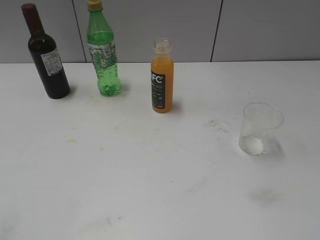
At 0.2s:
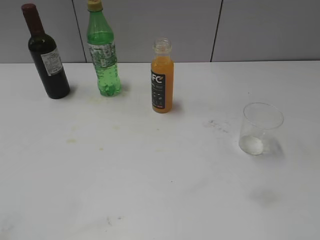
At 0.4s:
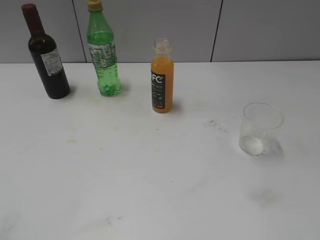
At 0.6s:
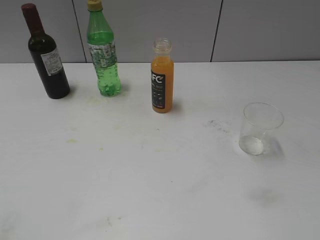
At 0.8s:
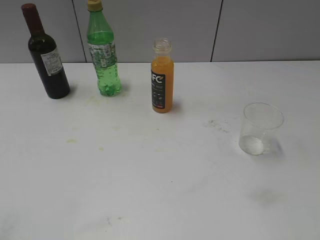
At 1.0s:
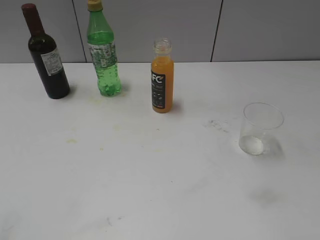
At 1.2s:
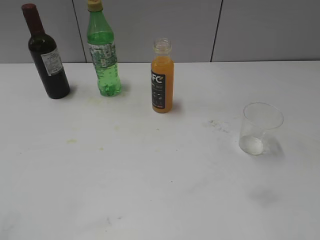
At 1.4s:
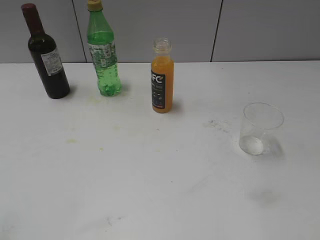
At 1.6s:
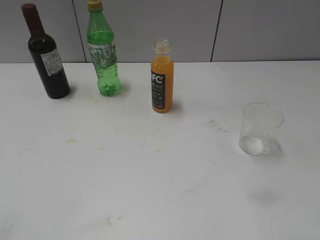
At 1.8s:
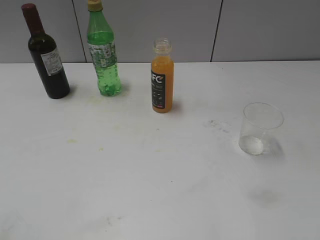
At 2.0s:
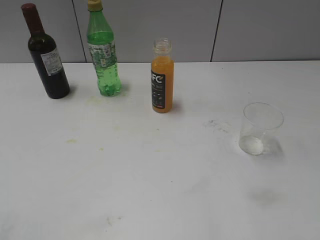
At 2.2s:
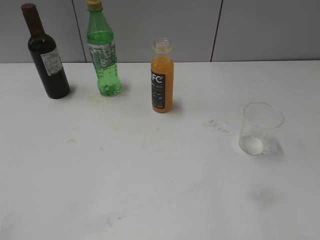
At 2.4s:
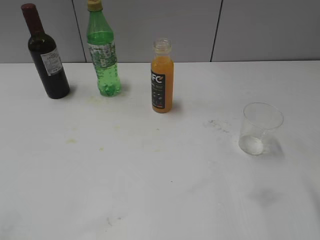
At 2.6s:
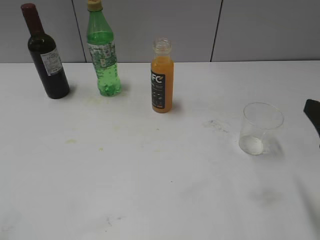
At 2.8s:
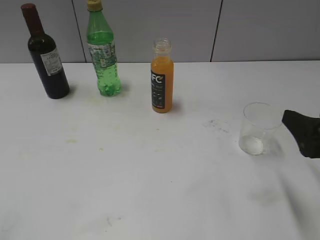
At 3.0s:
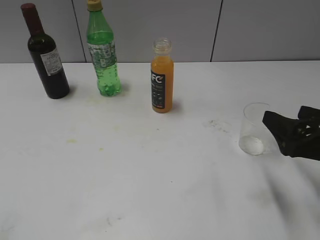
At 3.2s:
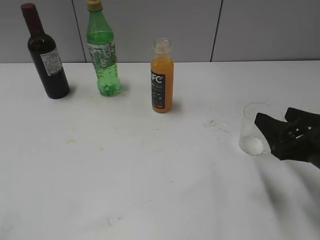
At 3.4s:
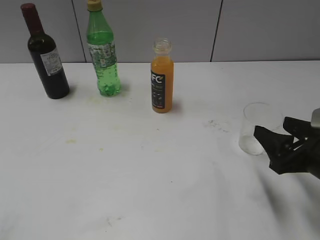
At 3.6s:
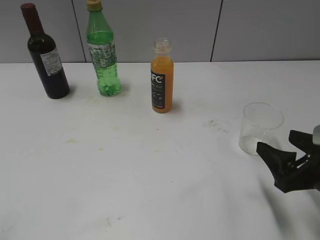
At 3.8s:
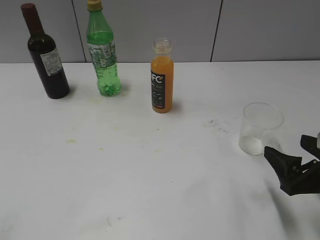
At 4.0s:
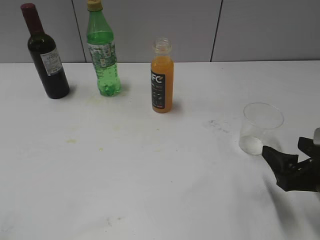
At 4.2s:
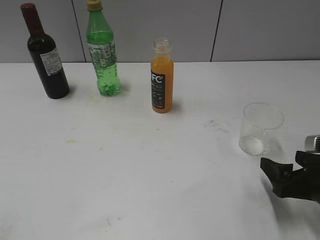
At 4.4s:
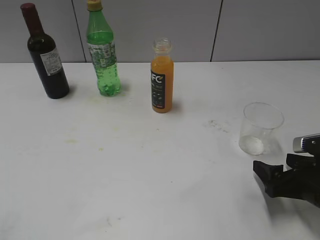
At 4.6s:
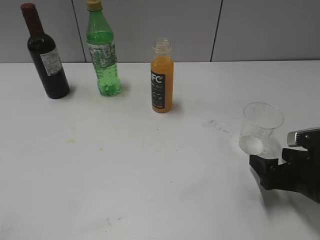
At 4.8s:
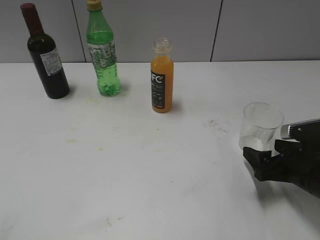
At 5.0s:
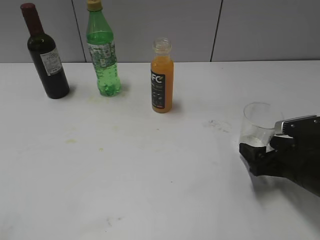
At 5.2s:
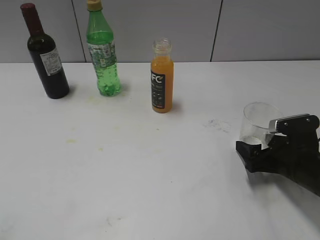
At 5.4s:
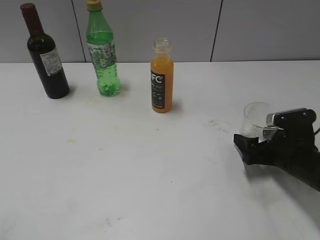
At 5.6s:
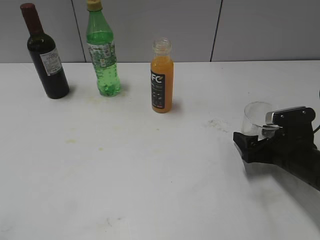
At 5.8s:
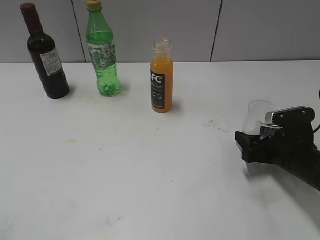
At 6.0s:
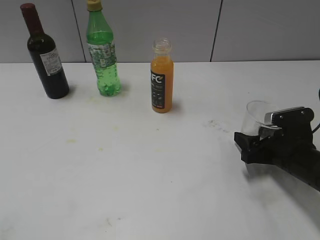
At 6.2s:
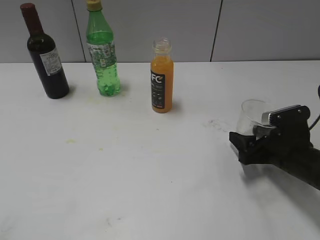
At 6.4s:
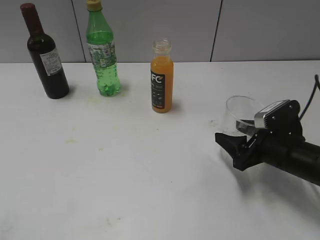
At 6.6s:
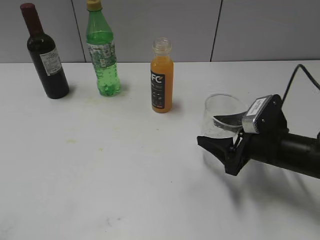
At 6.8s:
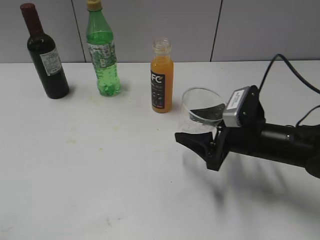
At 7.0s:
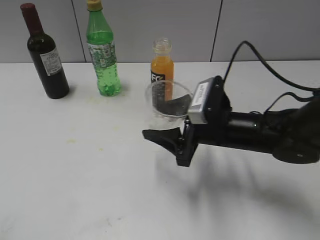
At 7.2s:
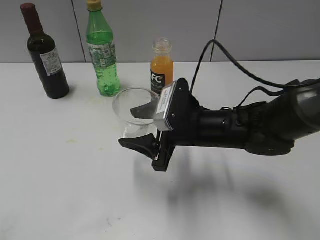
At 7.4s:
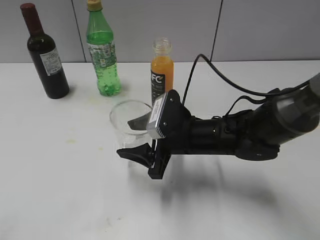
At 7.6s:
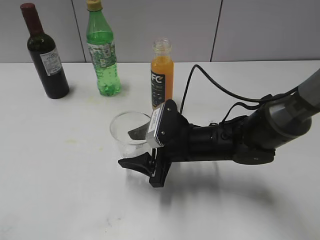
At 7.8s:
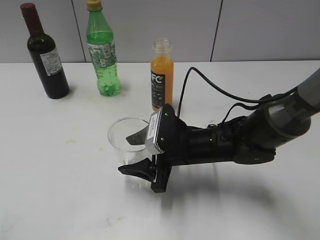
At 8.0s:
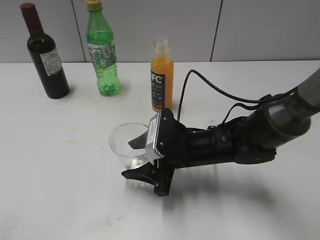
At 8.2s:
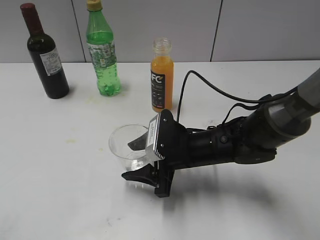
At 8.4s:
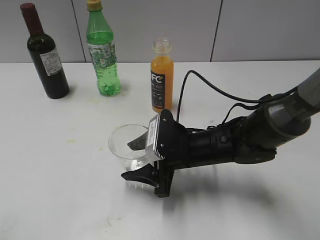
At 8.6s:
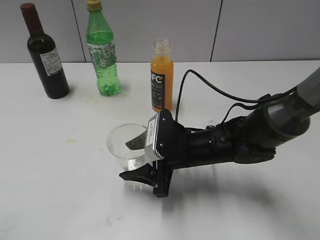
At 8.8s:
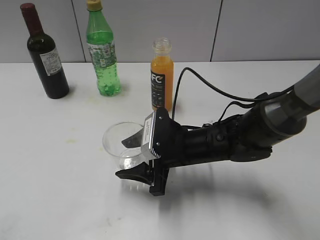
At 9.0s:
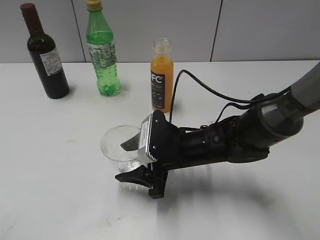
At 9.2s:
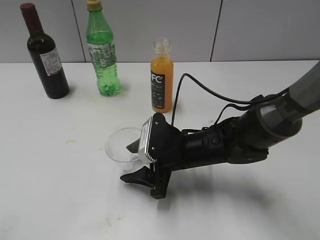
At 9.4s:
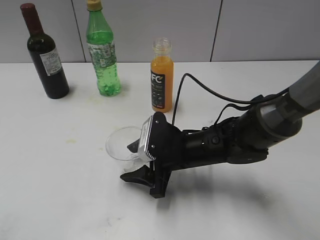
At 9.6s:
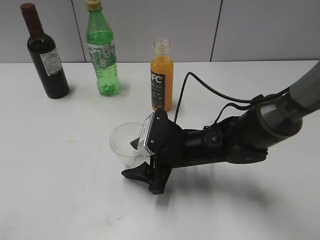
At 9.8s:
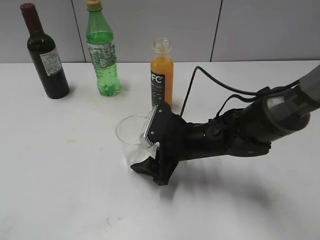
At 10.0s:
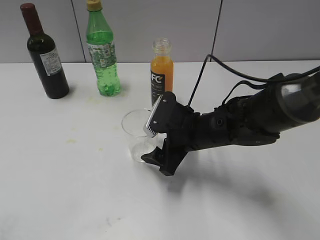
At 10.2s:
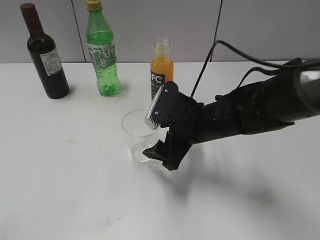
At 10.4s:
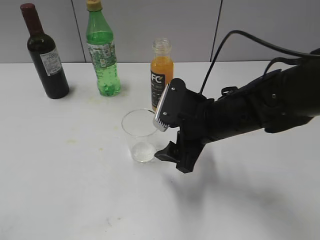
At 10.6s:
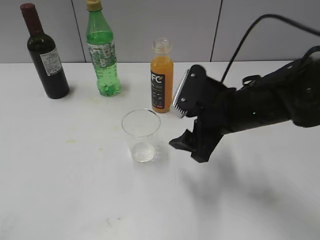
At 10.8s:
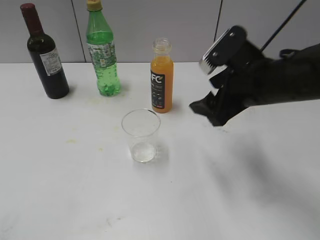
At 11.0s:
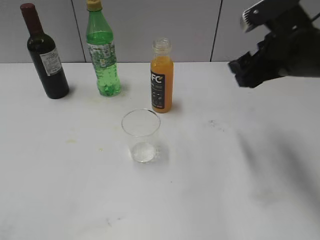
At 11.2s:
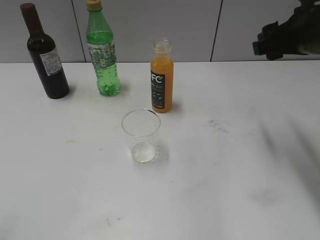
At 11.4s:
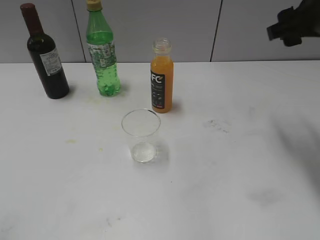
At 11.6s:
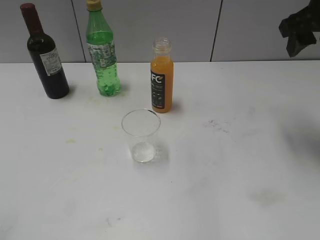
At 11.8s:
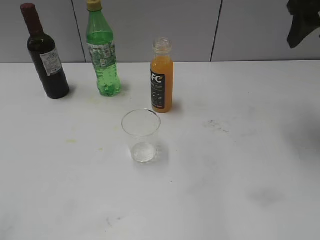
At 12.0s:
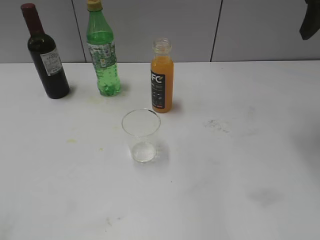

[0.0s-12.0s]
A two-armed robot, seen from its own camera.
Step, 2.6s to 5.8s: Grasp the transparent cup with right gripper.
Step, 6.0s to 10.4s: Place the transparent cup on the table with right gripper.
1.6s to 3.0s: The right gripper goes some 20 cm downward and forward, and opens.
3.0s to 4.4s: The right gripper heads downward, covering approximately 10 cm, and closes, then reopens.
4.4s to 6.0s: The right gripper shifts some 10 cm forward, and closes.
6.0s to 7.6s: The right gripper shifts some 20 cm to the left.
7.6s to 9.0s: The grippers stay close to where they were, moving slightly.
9.0s to 10.4s: The right gripper goes some 5 cm upward, and opens.
10.4s to 12.0s: The right gripper heads upward and to the right, covering about 30 cm, and closes up.

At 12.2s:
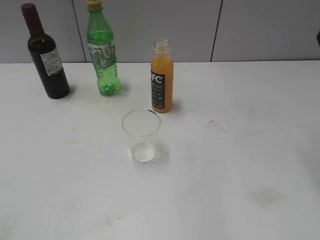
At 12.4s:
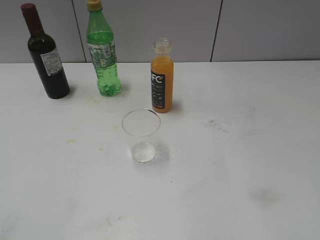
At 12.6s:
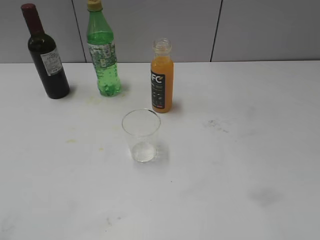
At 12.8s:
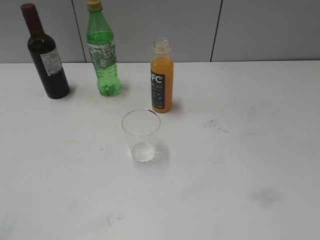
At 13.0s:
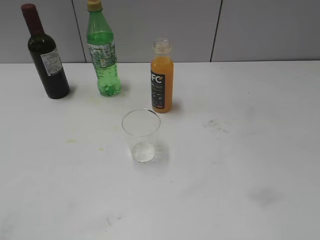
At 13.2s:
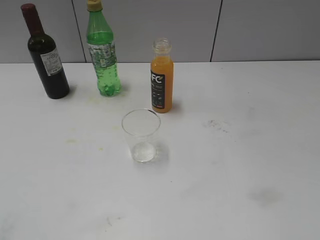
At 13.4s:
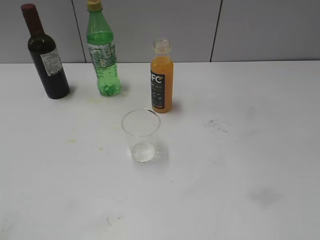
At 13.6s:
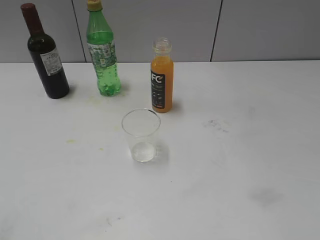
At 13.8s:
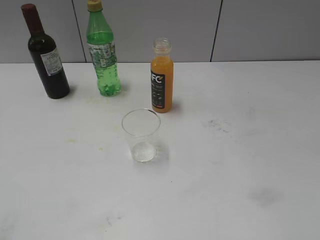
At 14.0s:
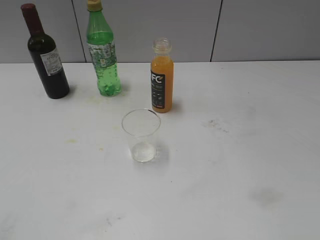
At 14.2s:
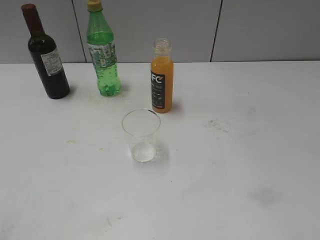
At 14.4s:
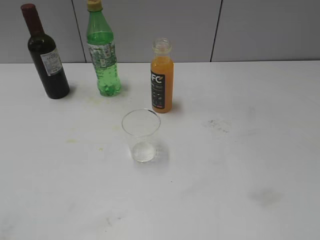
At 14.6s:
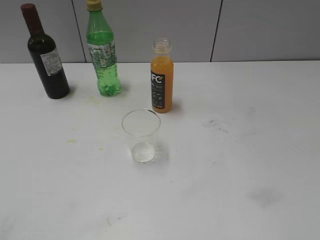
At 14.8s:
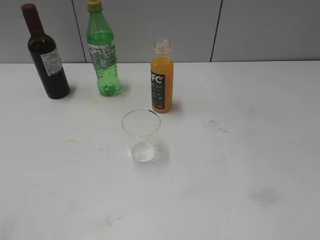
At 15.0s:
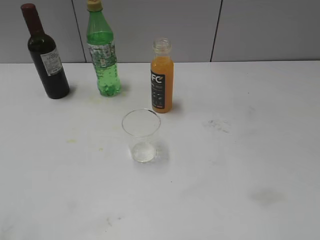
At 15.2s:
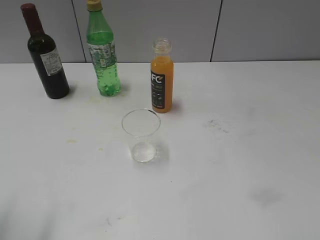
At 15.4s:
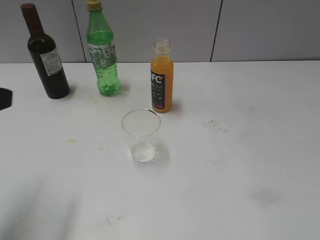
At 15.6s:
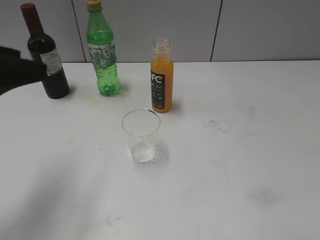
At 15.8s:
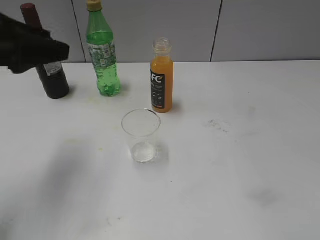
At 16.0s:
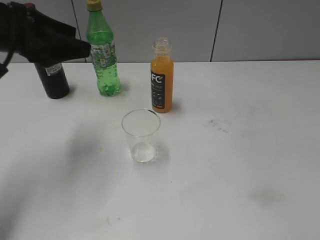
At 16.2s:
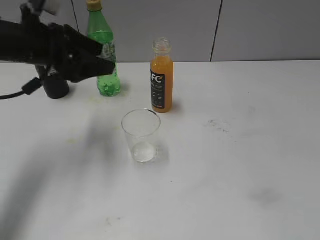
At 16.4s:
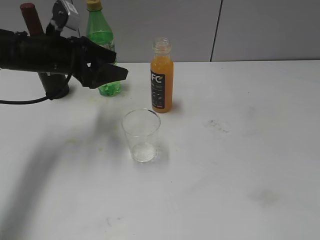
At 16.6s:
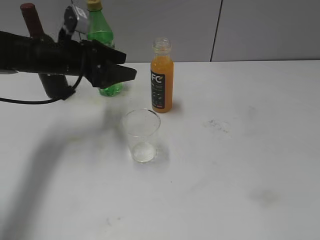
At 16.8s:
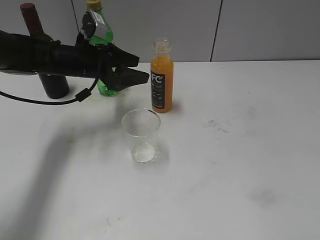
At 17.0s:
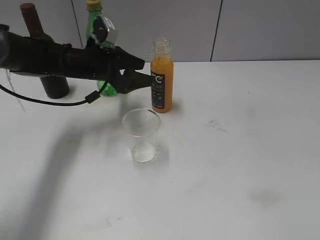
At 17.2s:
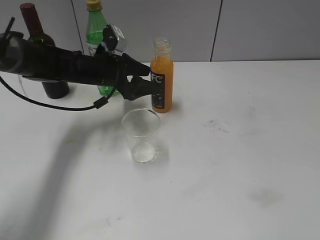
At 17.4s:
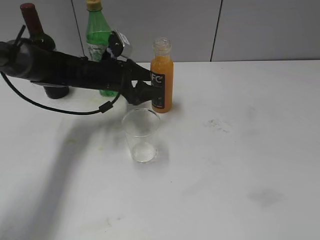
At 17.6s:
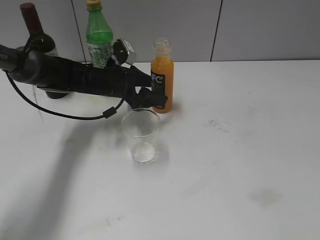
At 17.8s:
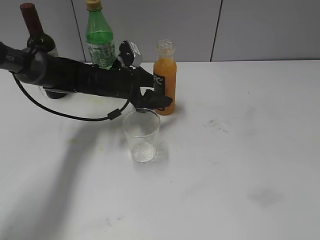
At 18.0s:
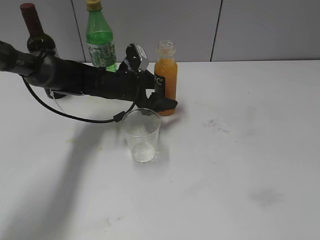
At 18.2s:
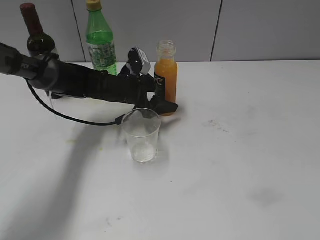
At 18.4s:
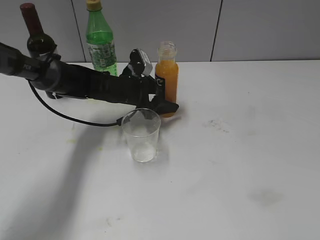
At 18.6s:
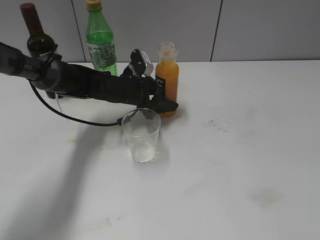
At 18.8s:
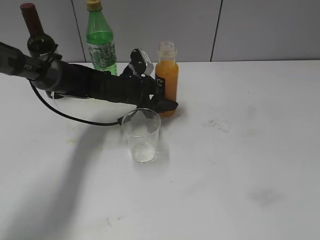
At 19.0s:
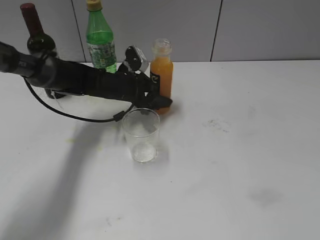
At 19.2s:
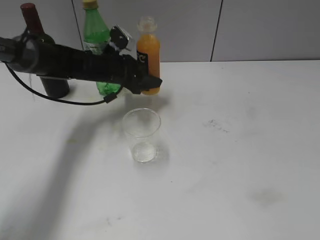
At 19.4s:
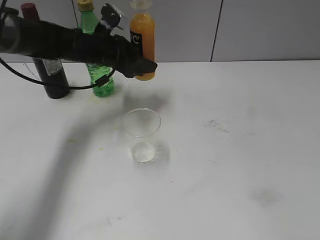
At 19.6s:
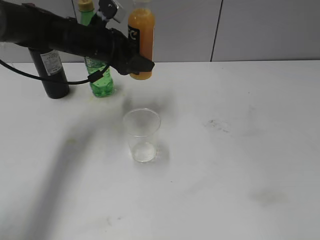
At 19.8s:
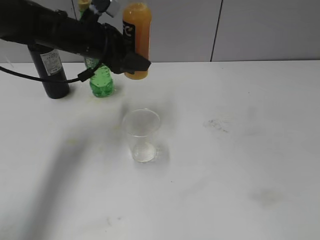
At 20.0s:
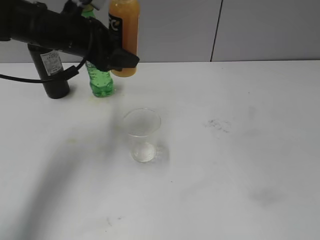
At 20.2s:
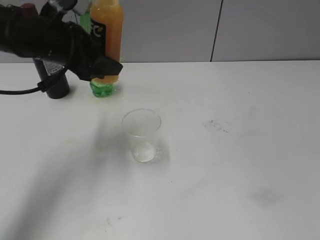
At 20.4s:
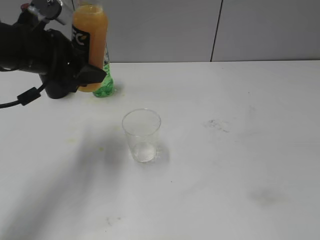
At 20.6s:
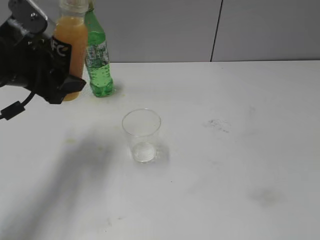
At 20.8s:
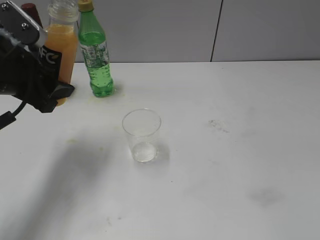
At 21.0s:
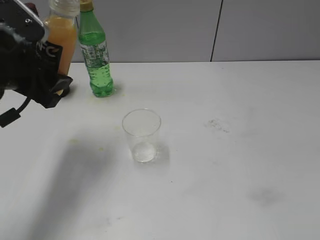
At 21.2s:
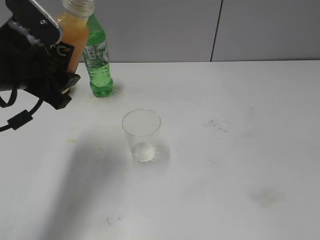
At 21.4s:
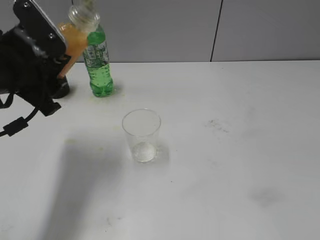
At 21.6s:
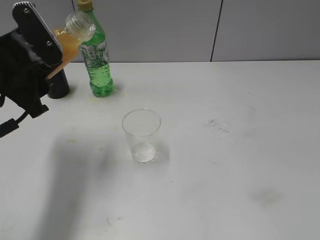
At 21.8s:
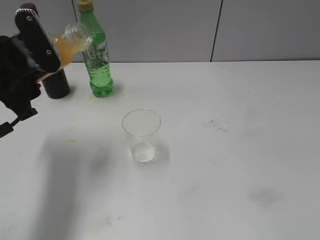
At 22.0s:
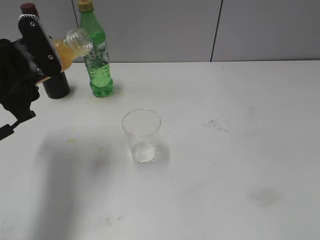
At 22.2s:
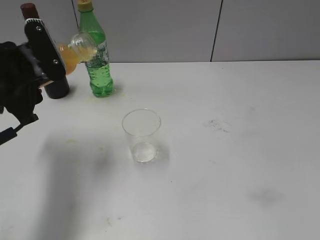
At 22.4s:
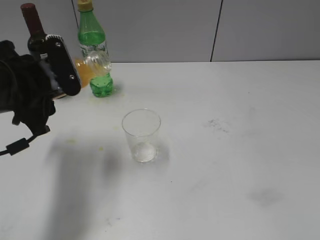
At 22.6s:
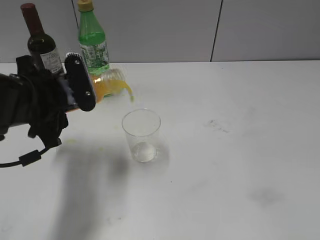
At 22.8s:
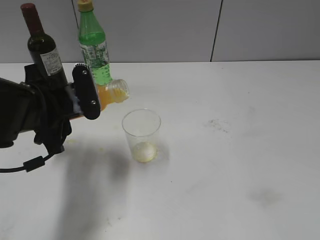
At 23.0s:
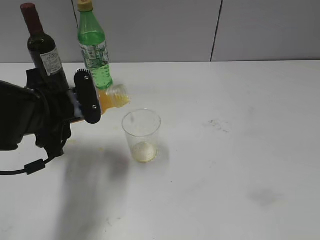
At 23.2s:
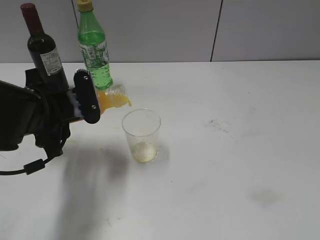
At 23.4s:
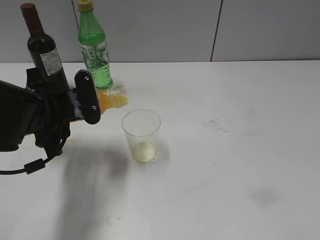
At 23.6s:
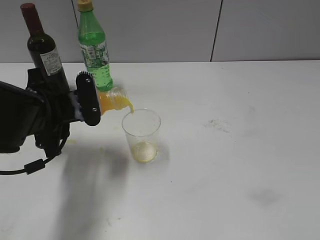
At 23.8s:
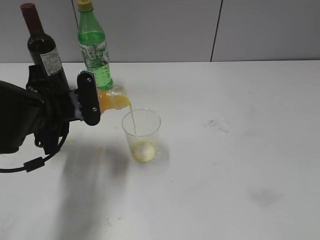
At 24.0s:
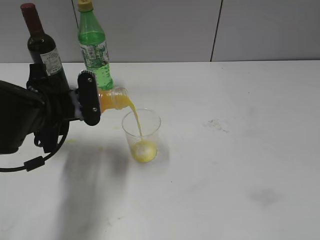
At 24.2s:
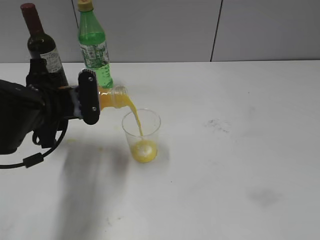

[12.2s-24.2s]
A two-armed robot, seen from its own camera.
Step, 12.2s to 18.4s: Grasp the bottle with orange juice with left gripper.
15.2s to 16.6s: The left gripper moves forward and to the right, some 30 cm.
16.6s to 18.2s: The left gripper shifts roughly 15 cm to the right and downward.
18.2s to 19.8s: The left gripper goes some 15 cm upward, and closes.
19.8s to 21.2s: The left gripper shifts some 15 cm backward and to the left.
21.2s to 22.6s: The left gripper goes roughly 5 cm downward.
22.6s to 24.2s: There are only small adjustments of the grippers.
